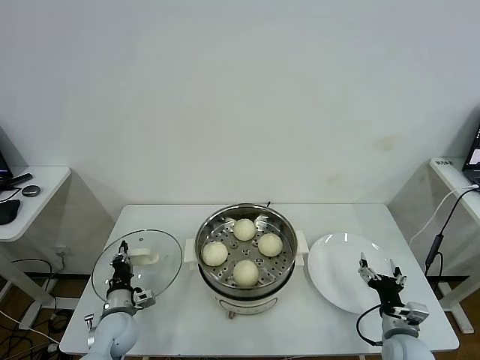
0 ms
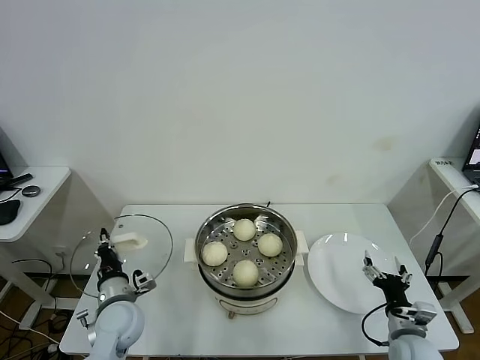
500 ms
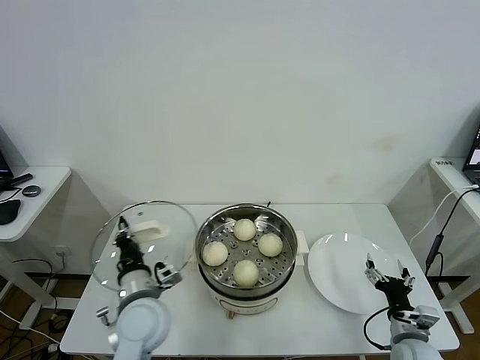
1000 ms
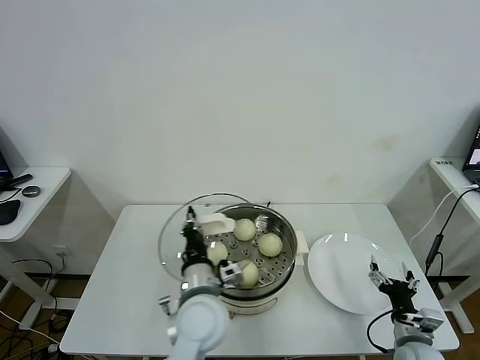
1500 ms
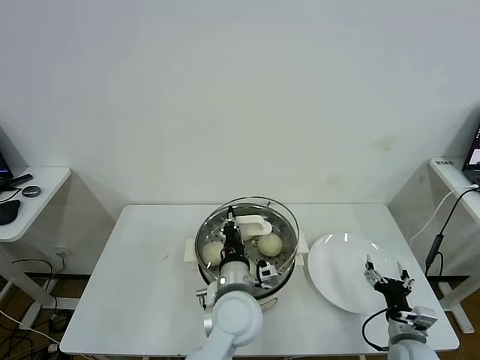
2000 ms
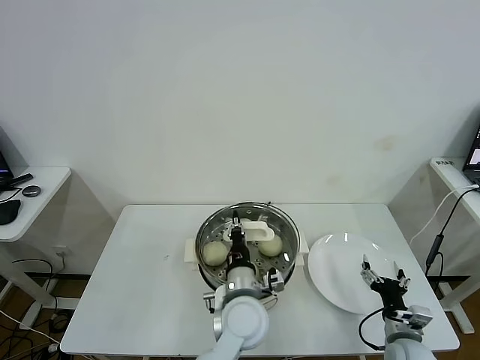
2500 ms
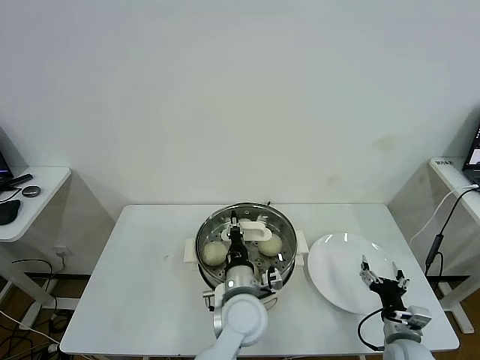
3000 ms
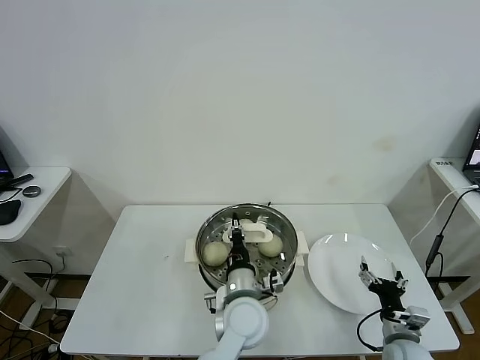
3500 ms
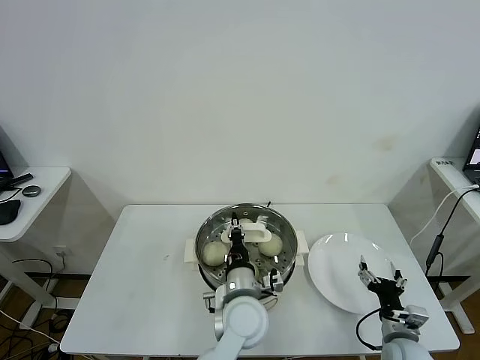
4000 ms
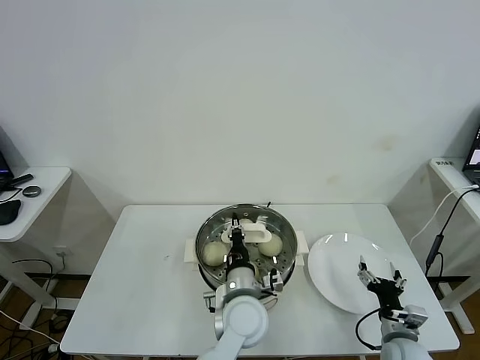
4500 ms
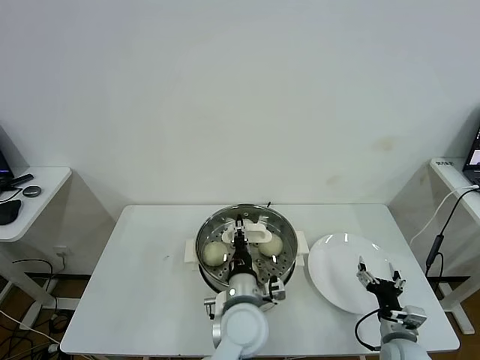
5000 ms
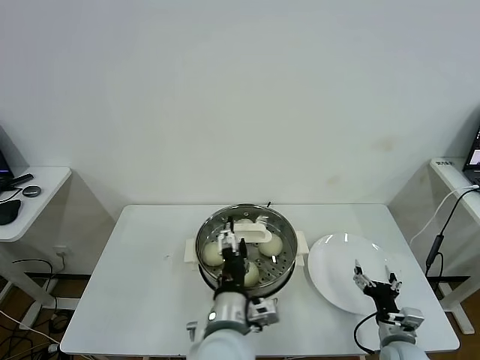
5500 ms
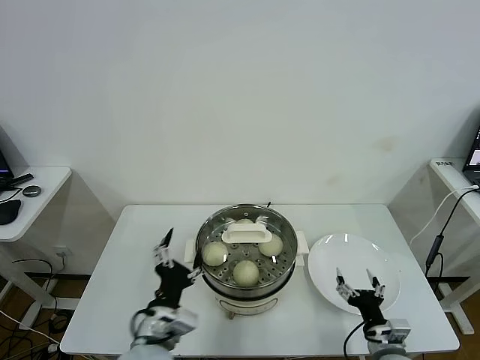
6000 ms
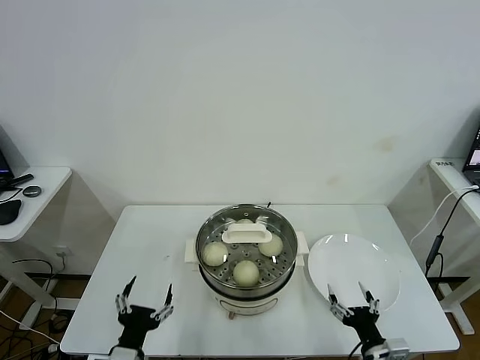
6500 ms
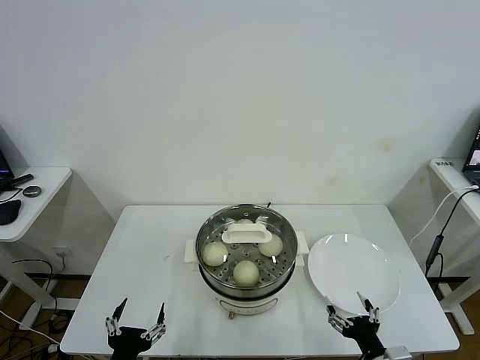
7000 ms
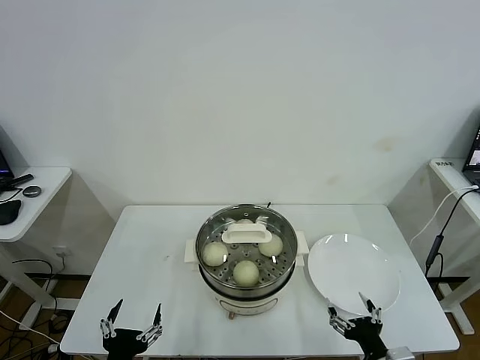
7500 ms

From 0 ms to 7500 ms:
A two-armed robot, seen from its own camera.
Task of the whole recording: take steamed baozi put them in steamer.
Step, from 0 ms to 5500 ms: Place the pot lid on the steamer with left gripper.
From 0 ms to 2000 ms: The left gripper heads to the right and upward, covering approximately 35 cm.
From 2000 ms to 4000 ms: The grippers make only small movements.
From 4000 ms to 5500 ms: The left gripper goes some 5 cm backward, and opens.
From 5500 ms to 7500 ms: The left gripper shifts roughly 25 cm to the left and backward; the right gripper goes roughly 15 cm backward, upward and to the left.

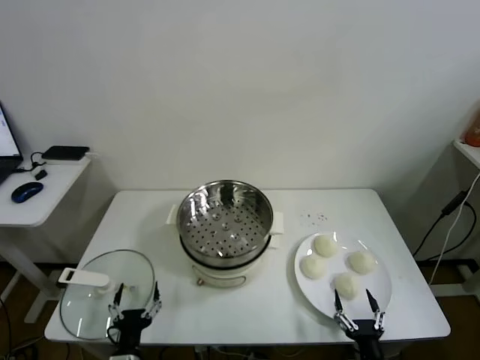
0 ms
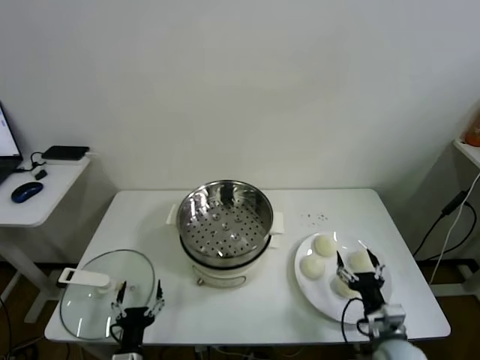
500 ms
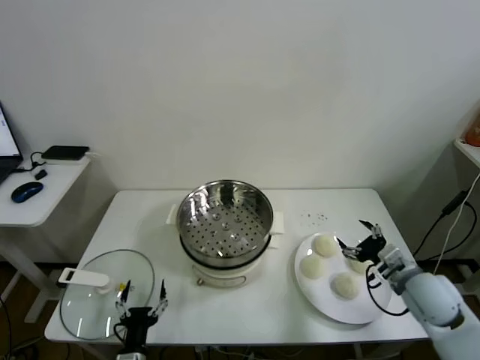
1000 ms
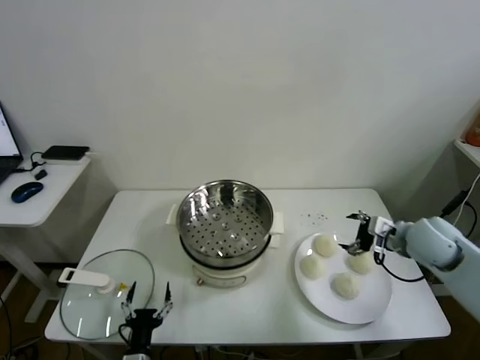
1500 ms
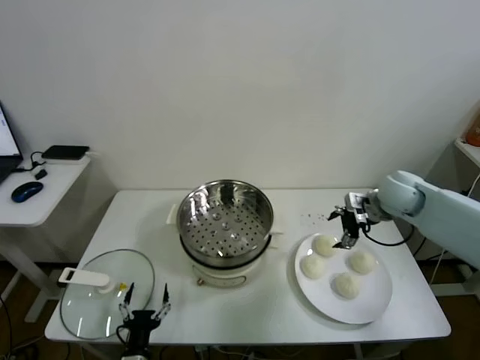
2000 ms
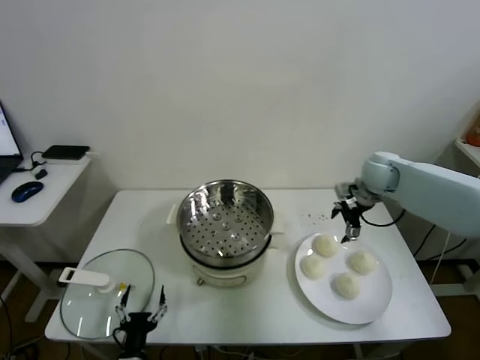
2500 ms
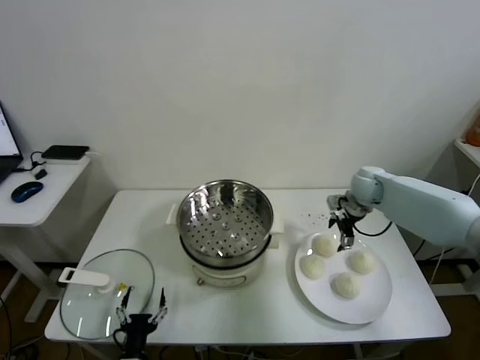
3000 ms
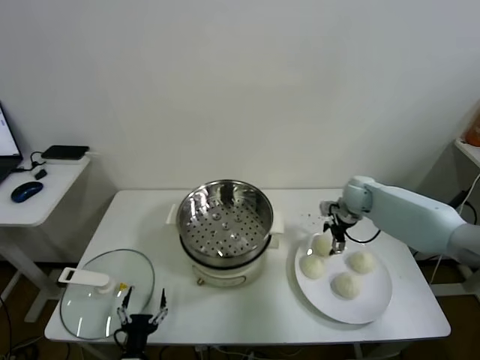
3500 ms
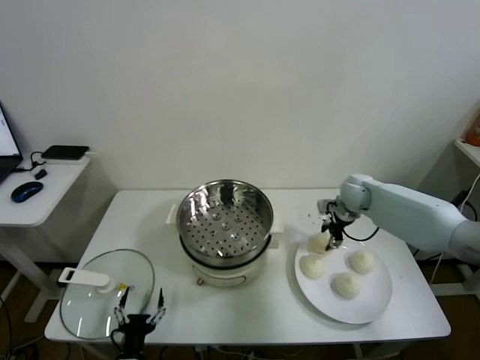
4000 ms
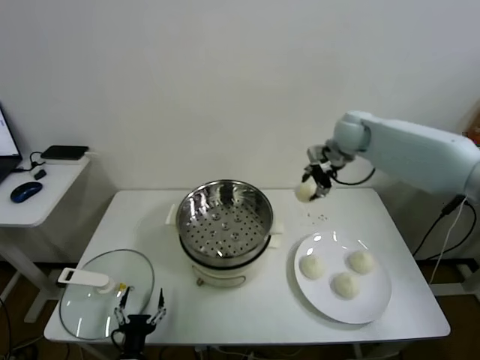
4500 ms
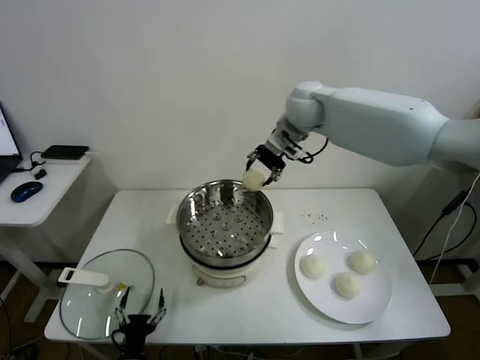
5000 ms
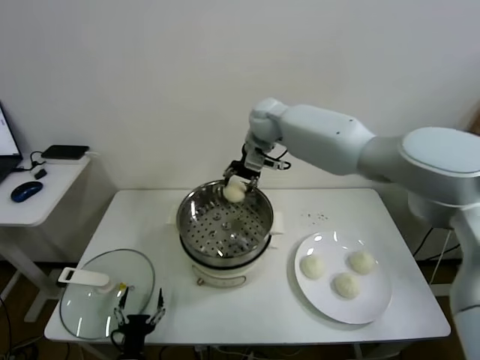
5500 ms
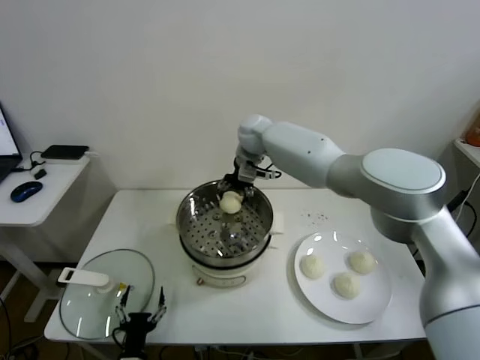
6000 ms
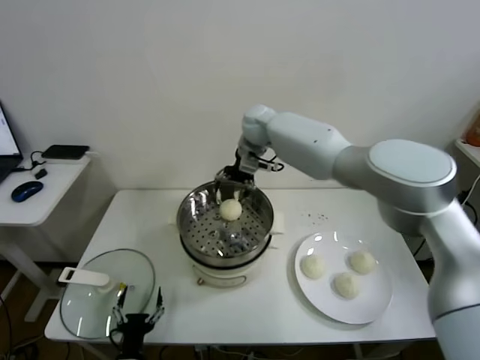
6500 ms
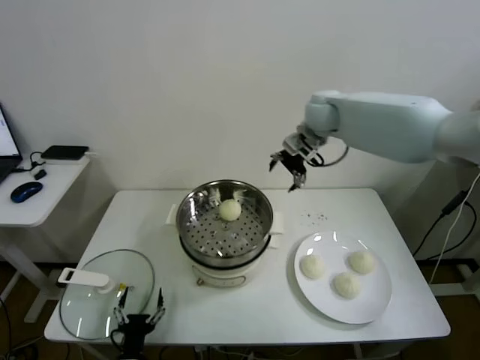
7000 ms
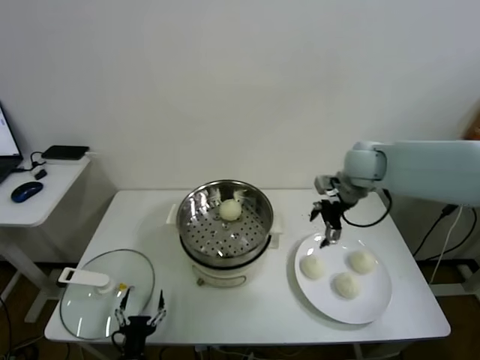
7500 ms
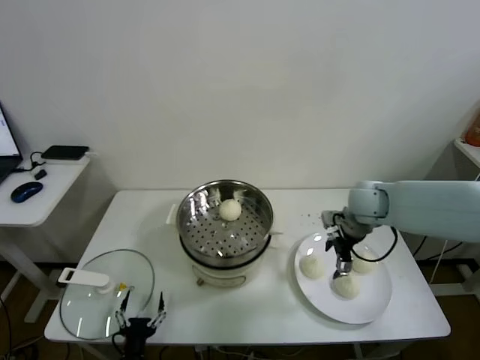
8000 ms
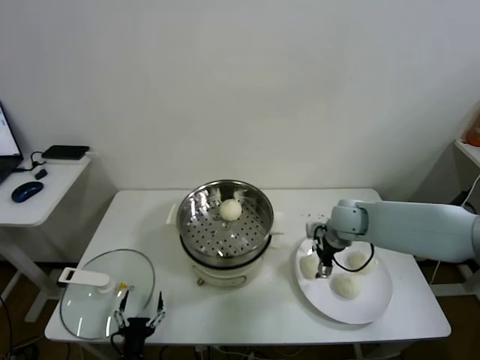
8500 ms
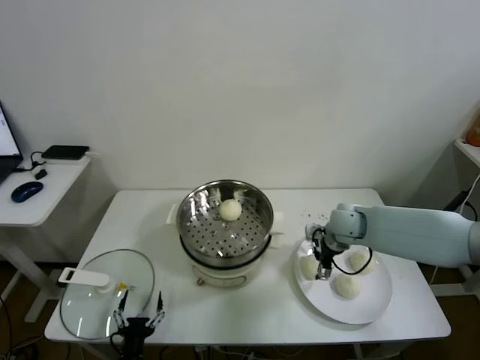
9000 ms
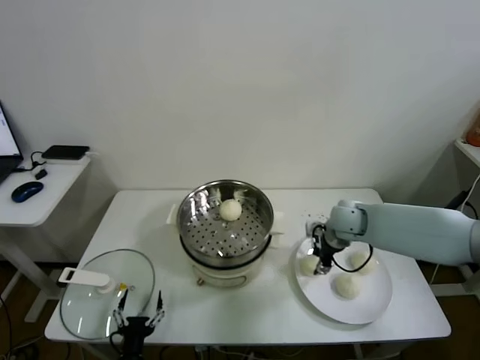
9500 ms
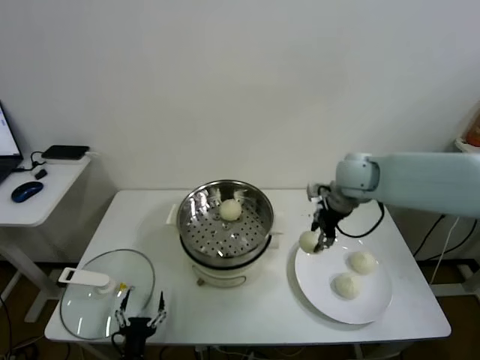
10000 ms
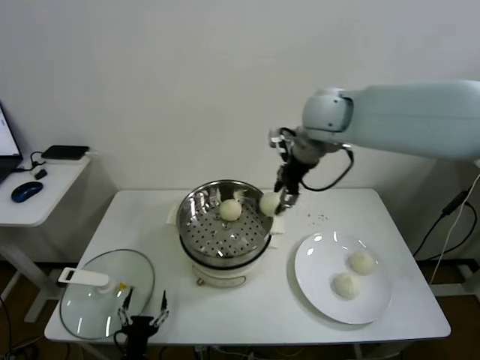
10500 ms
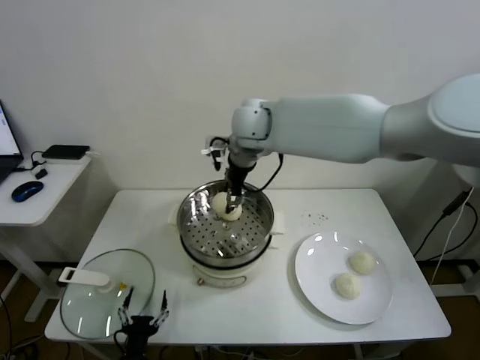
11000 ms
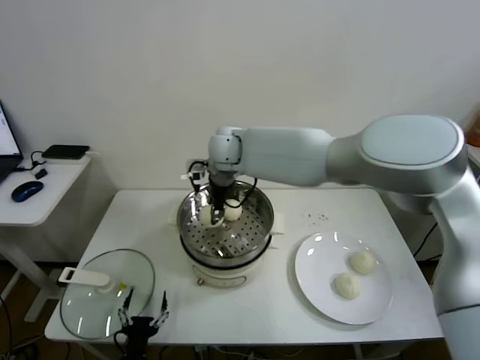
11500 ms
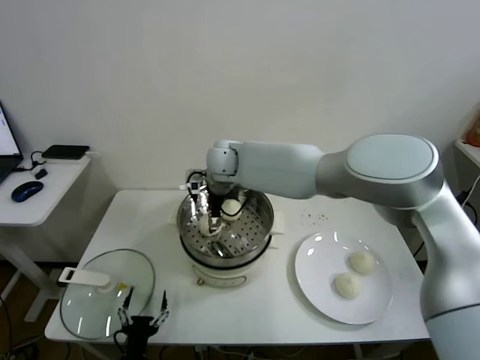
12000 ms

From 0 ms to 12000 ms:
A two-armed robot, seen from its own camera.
Task of the whole recording: take steamed baozi put them in steamer.
Step, from 0 ms to 3500 ms: Grasp the baozi in the plate with right gripper.
Step, from 4500 ms to 6000 ms: Place the baozi on the steamer with right gripper.
Step, from 6500 ms to 9000 ms: Grasp the baozi in the plate with right gripper.
From 2000 ms to 4000 ms: The right gripper is displaced forward and downward by approximately 10 cm, and closes its fingers.
From 4000 ms to 6000 ms: The right gripper goes approximately 30 cm to the left and upward, and opens up.
From 6000 ms to 8000 ms: The right gripper is displaced to the right and backward by about 30 cm.
From 8000 ms to 10000 ms: The right gripper travels upward by about 10 cm, and closes.
From 10000 ms to 12000 ms: The right gripper shifts some 30 cm to the left, and opens up.

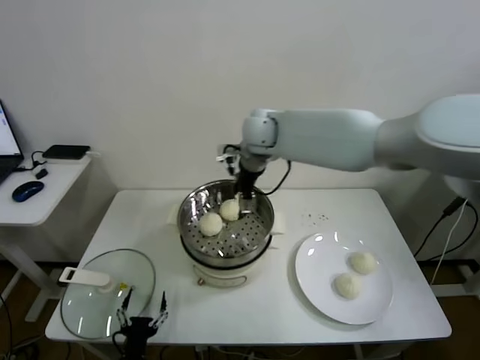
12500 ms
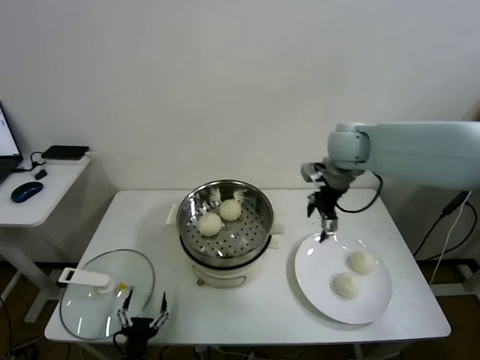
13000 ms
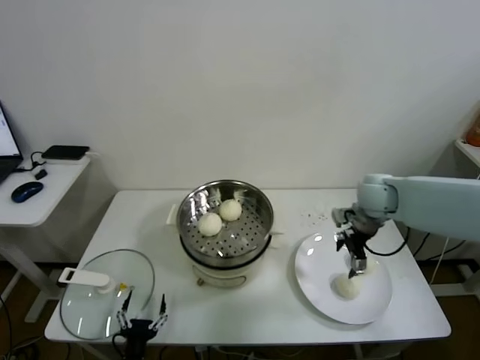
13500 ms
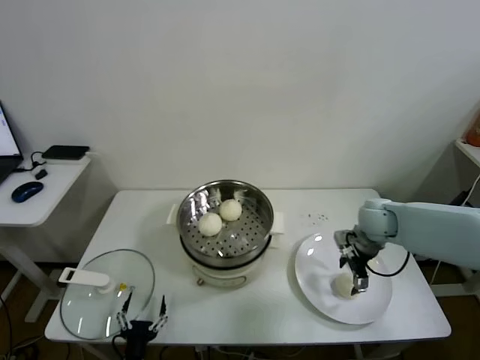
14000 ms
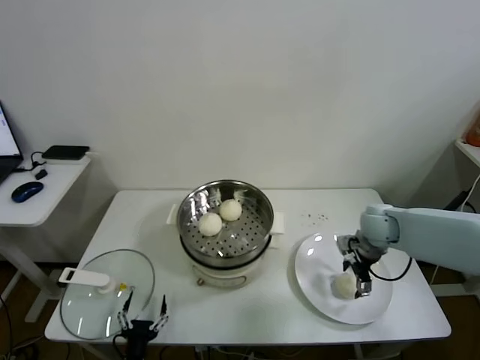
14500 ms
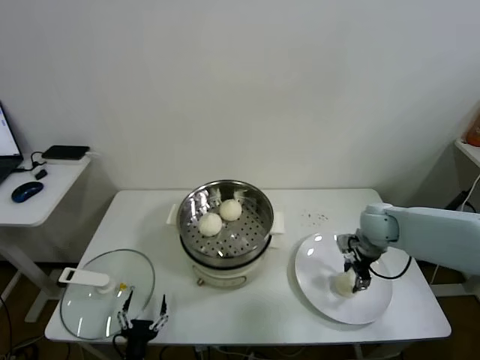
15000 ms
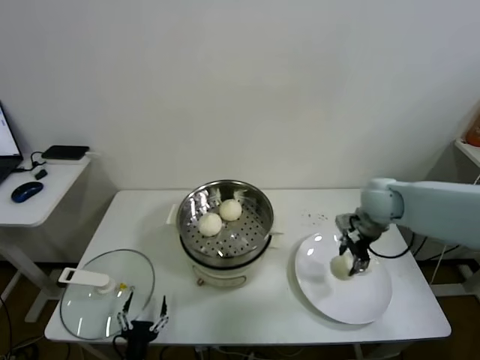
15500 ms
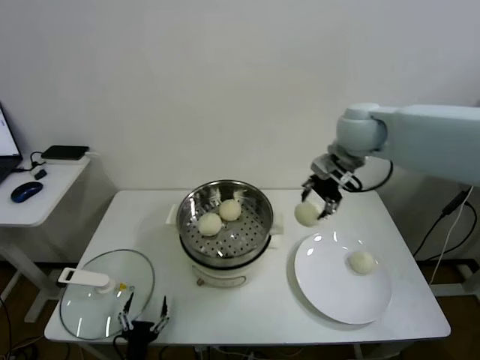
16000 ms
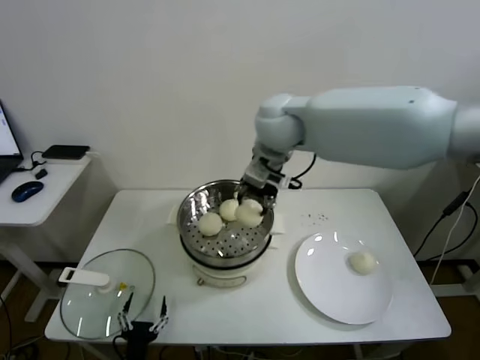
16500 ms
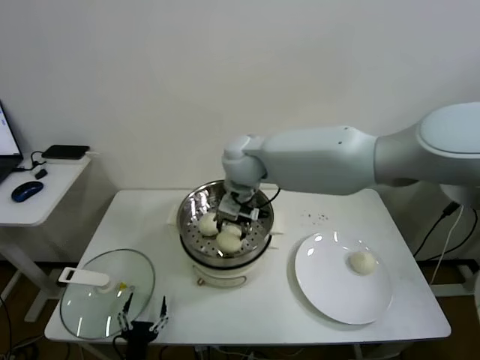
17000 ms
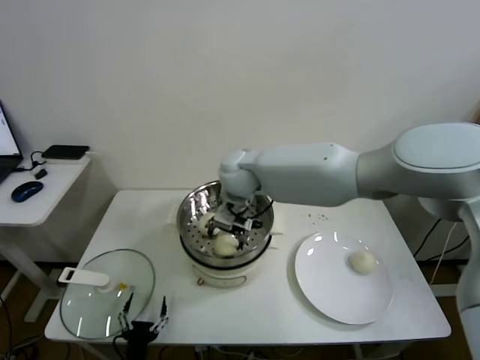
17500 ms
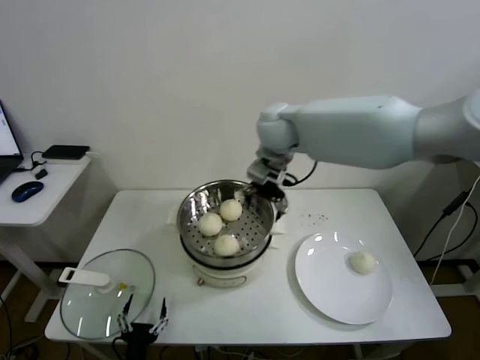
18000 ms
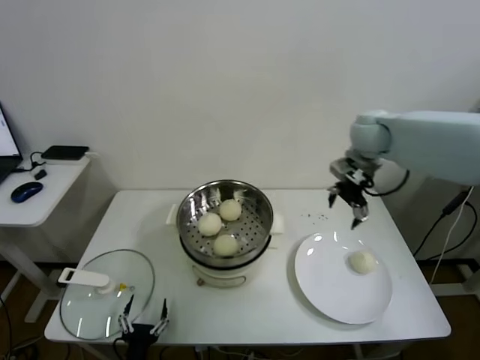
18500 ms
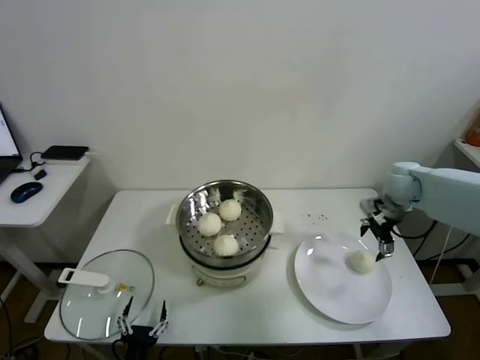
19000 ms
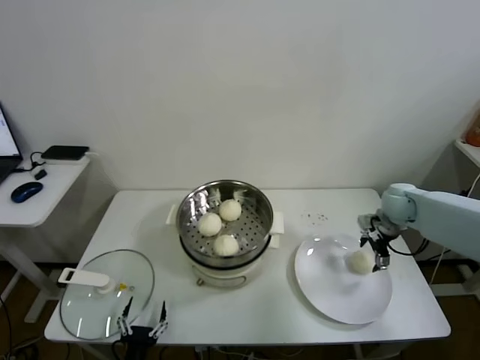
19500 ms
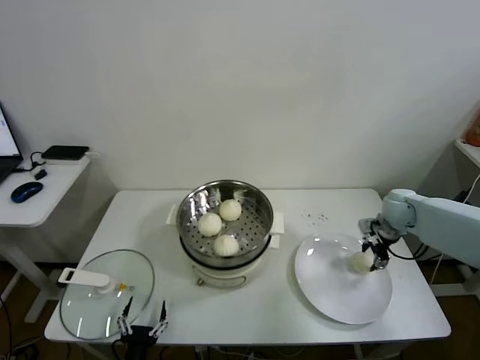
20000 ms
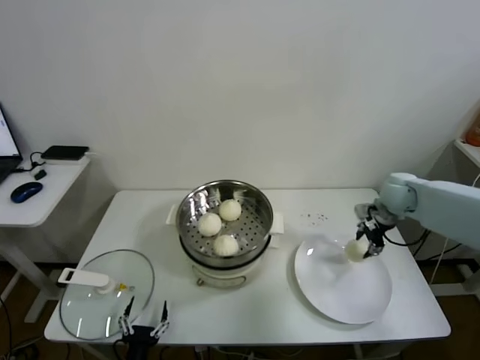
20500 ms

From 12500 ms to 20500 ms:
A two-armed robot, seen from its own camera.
Task of the whole recording: take steamed baozi put them in steamer.
Step, from 12500 ms to 15000 ms: Grasp the baozi in the plate with right gripper.
Step, from 15500 ms to 17500 ms: Place the baozi on the steamer with right gripper.
Step, from 18000 ms to 20000 ms: Grasp the baozi in the plate with right gripper.
From 12500 ms to 14500 ms: The right gripper shifts some 35 cm to the right and downward.
From 14500 ms to 16500 ms: The right gripper shifts about 35 cm to the left and upward, and closes.
From 16500 ms to 18500 ms: The right gripper goes about 20 cm to the right, and opens its fingers.
From 18500 ms to 20500 ms: The right gripper shifts about 20 cm downward and to the right, and closes.
